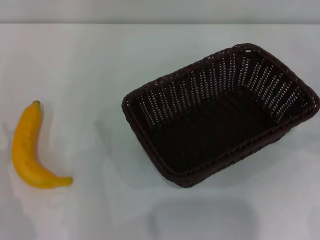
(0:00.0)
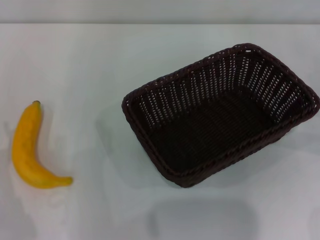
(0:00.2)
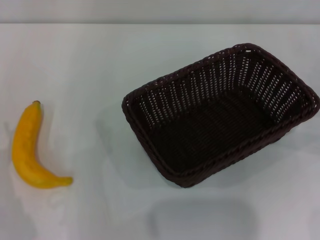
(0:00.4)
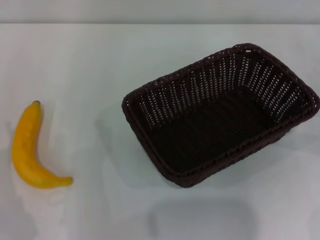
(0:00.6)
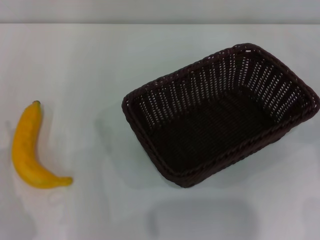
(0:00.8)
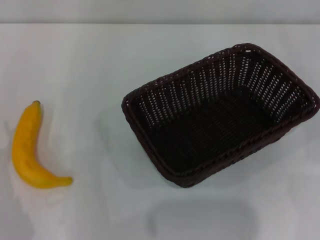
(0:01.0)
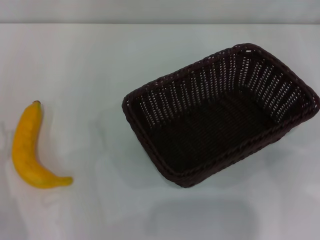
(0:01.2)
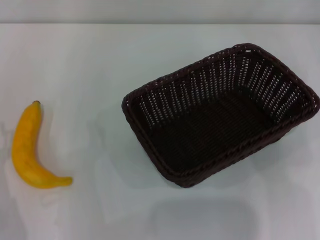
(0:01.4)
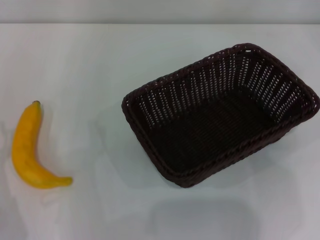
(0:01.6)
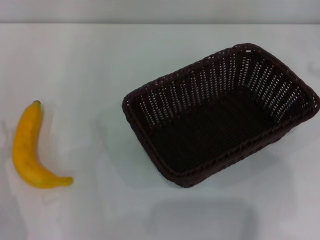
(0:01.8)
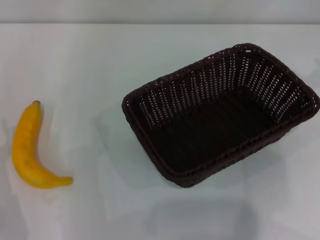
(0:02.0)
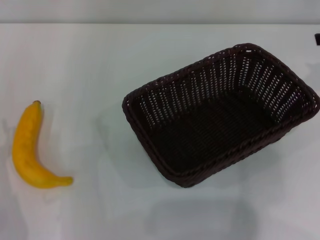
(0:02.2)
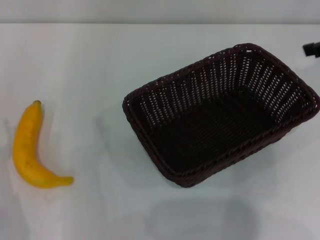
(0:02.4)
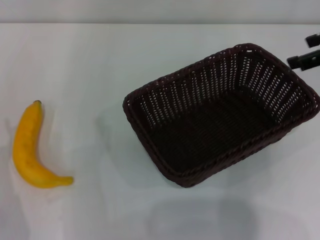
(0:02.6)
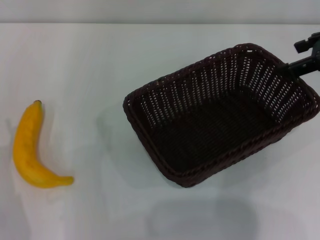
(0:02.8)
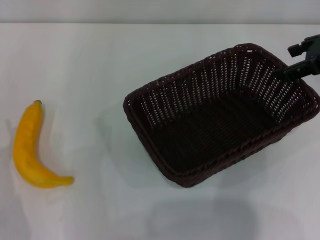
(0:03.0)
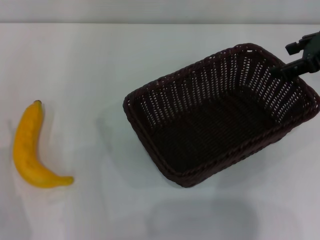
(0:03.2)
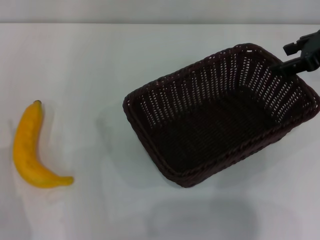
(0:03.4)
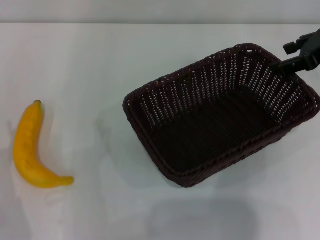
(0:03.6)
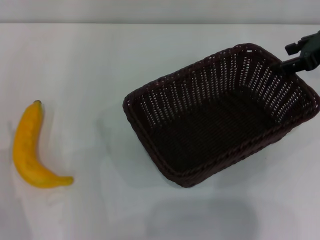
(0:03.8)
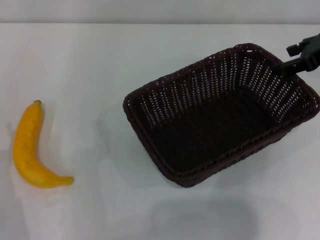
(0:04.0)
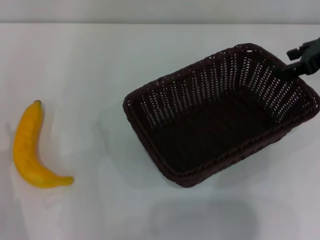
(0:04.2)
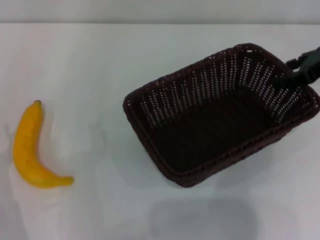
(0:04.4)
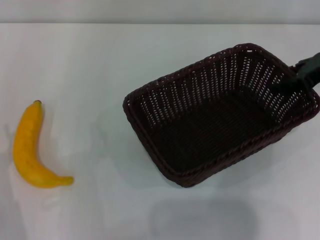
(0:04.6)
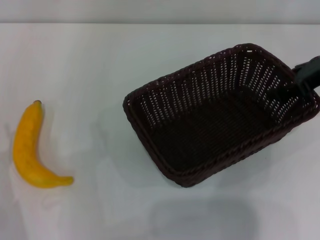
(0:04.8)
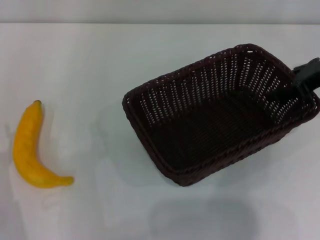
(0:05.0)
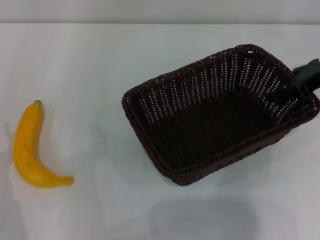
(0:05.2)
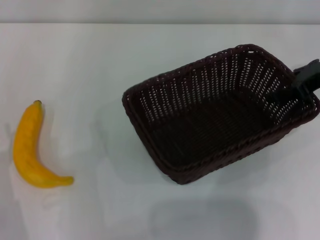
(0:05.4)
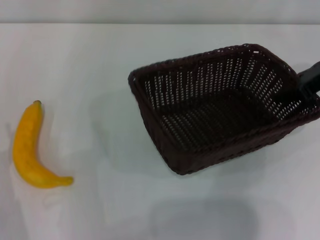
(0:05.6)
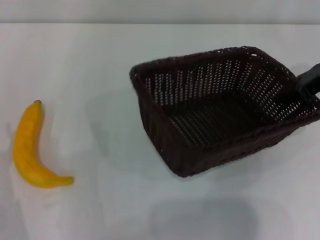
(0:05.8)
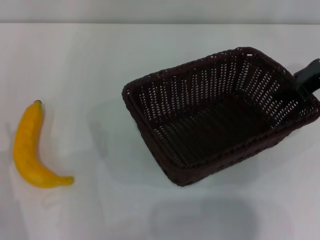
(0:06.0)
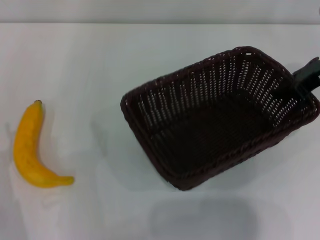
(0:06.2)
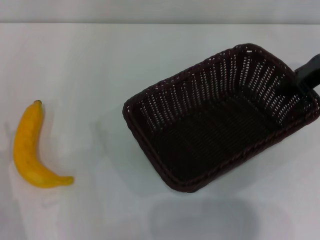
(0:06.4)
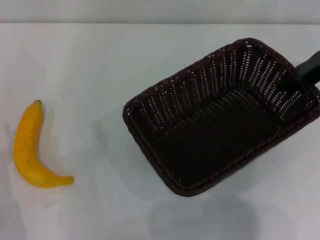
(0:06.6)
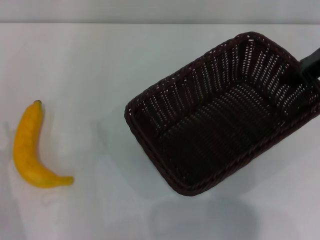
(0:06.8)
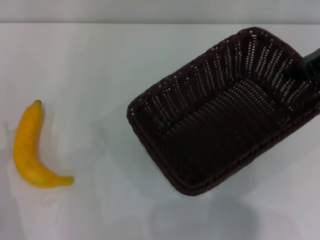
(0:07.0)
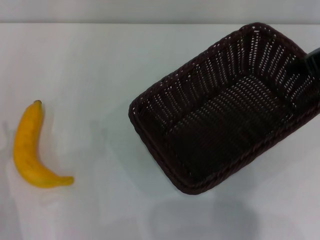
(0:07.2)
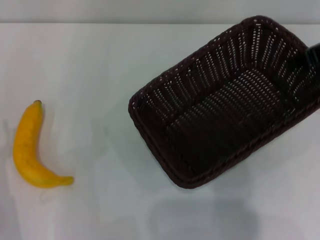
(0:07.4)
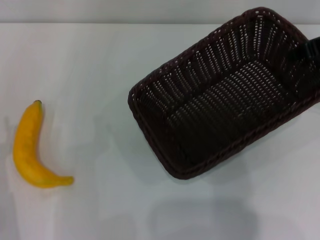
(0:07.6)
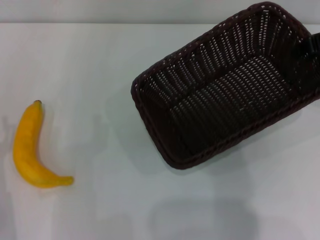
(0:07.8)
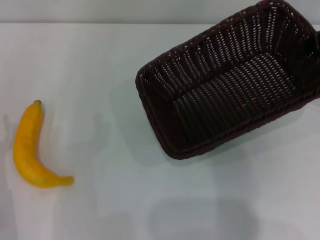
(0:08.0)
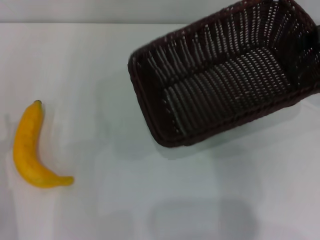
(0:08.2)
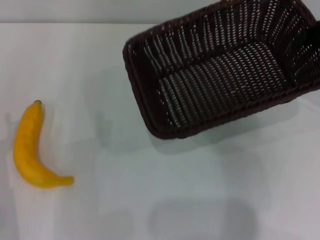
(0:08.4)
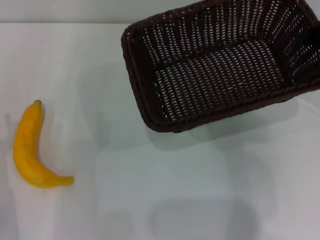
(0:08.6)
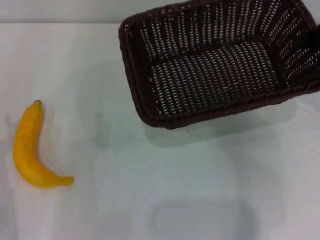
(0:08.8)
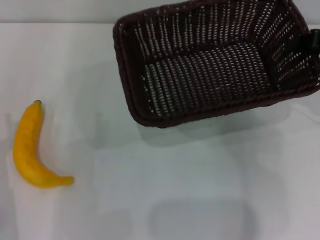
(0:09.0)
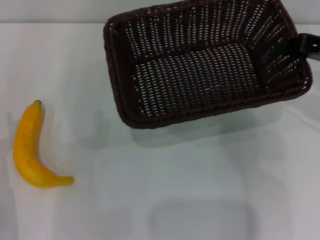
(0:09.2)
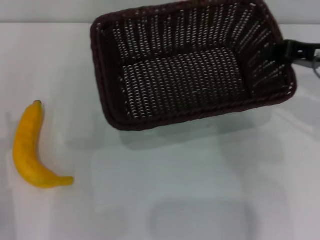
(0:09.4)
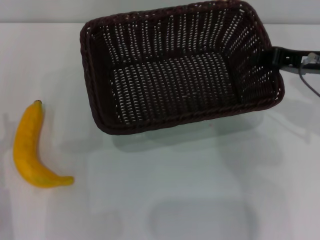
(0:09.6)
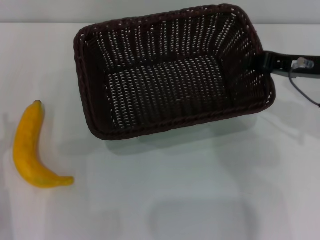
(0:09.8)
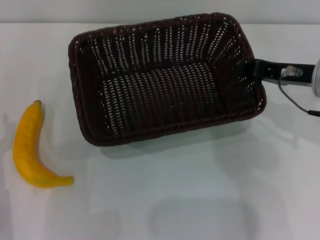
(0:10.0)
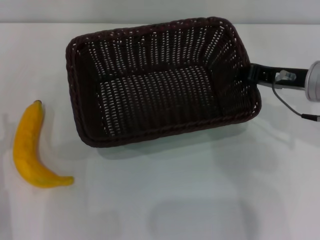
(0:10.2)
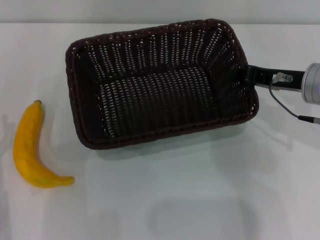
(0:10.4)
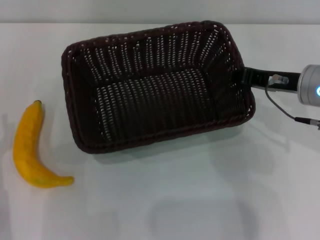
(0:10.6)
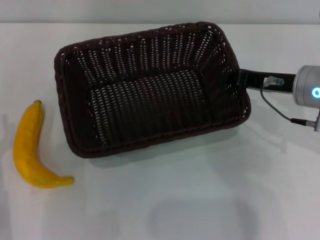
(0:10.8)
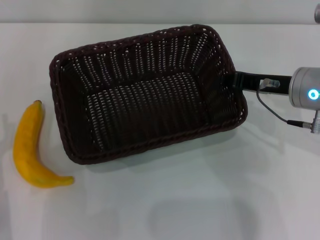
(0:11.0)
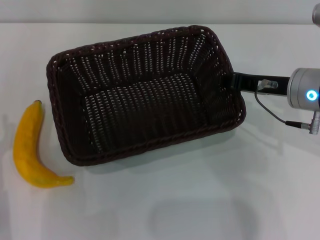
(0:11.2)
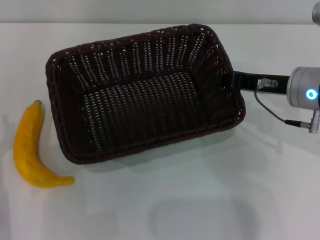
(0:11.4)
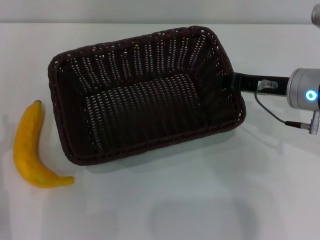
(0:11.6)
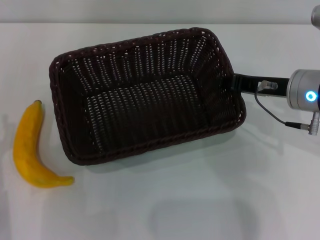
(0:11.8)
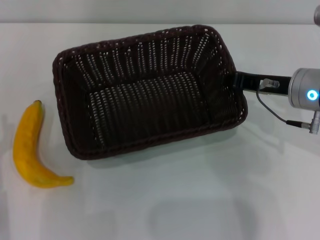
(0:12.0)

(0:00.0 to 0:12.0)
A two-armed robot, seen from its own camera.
Step, 0:00.0 - 0:08.0: Pick up the dark basket with the right gripper.
0:01.6 - 0:03.0: The right gripper moves to the left, about 10 cm.
0:03.0 - 0:04.4: There are only small adjustments of the grippers.
0:04.4 - 0:06.0: The right gripper closes its fingers.
0:06.0 - 0:07.6: The right gripper moves upward, roughly 5 cm, and closes.
0:09.0 - 0:10.4: The right gripper heads to the left and downward, covering some 10 cm.
0:10.4 - 0:12.0: The grippers make only small movements.

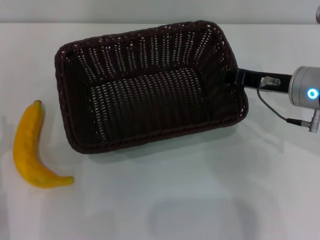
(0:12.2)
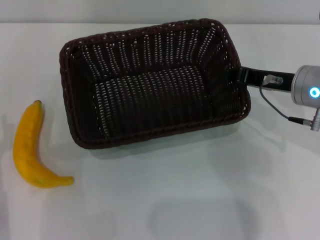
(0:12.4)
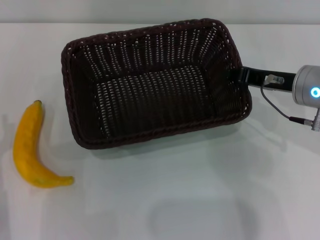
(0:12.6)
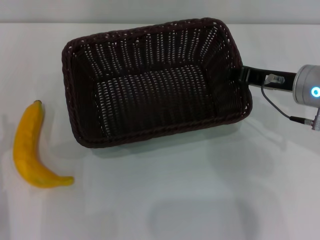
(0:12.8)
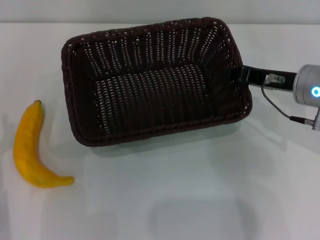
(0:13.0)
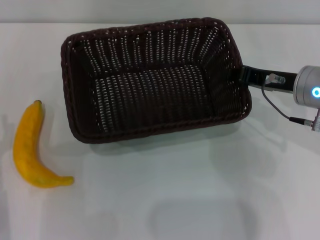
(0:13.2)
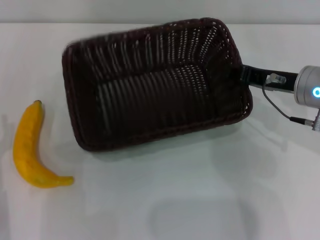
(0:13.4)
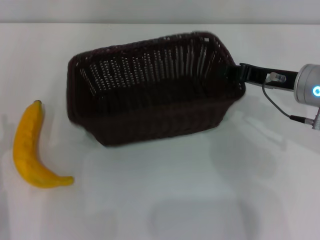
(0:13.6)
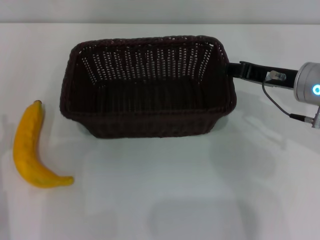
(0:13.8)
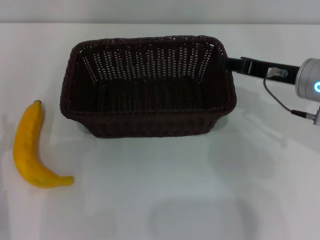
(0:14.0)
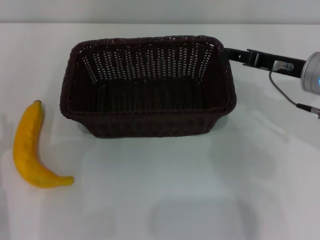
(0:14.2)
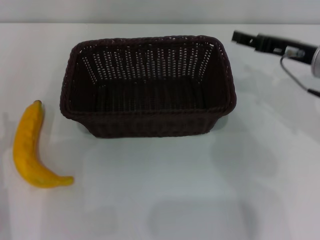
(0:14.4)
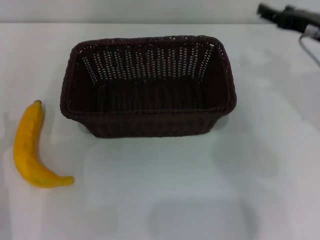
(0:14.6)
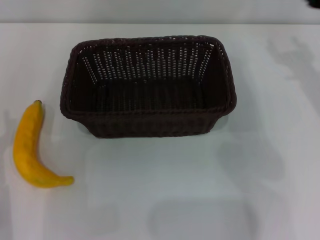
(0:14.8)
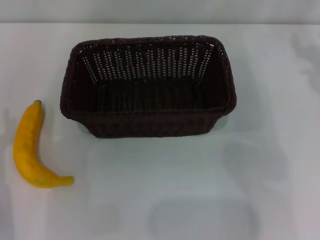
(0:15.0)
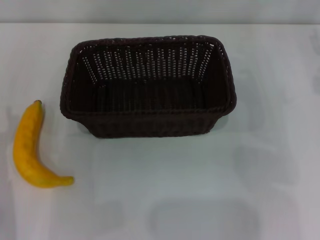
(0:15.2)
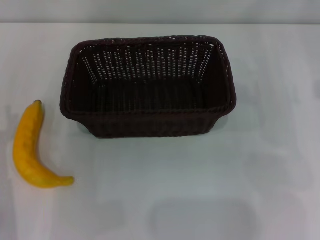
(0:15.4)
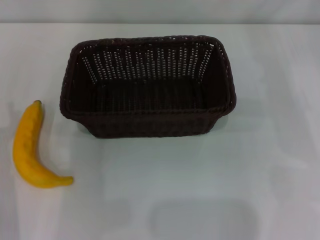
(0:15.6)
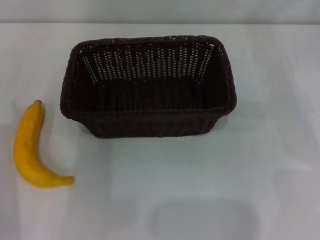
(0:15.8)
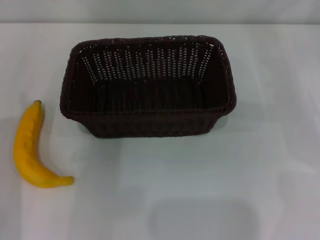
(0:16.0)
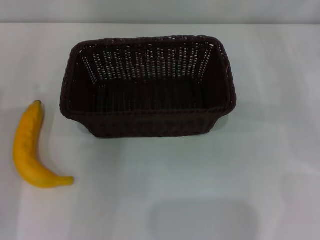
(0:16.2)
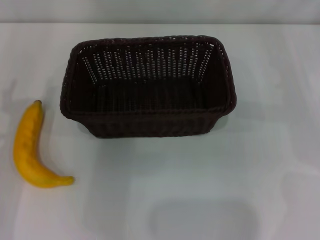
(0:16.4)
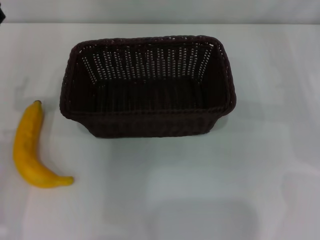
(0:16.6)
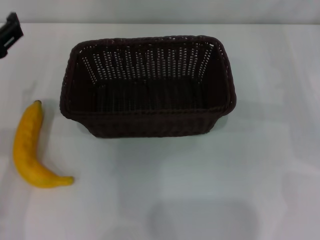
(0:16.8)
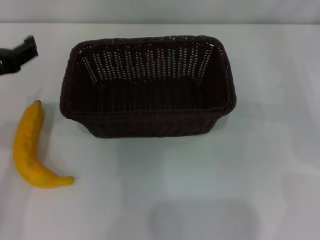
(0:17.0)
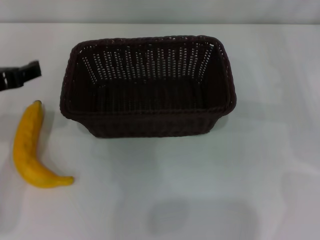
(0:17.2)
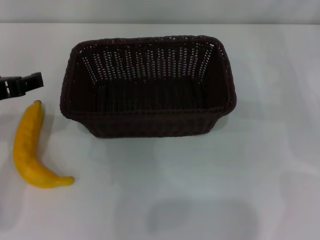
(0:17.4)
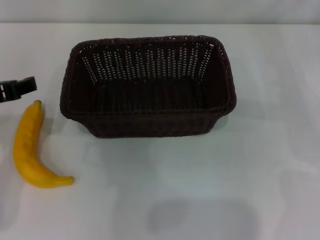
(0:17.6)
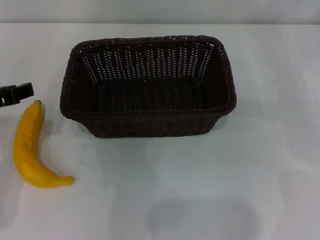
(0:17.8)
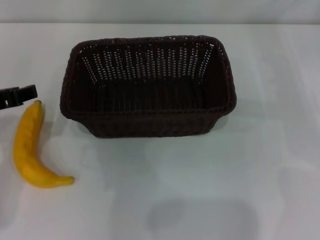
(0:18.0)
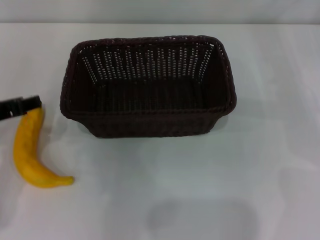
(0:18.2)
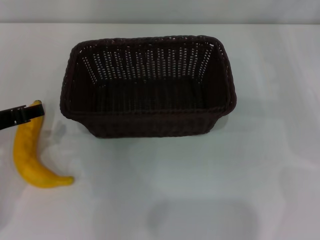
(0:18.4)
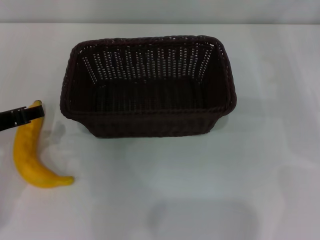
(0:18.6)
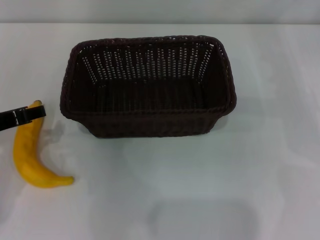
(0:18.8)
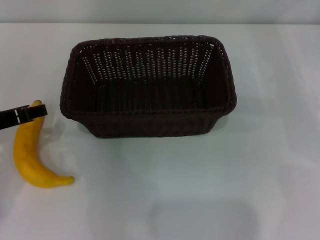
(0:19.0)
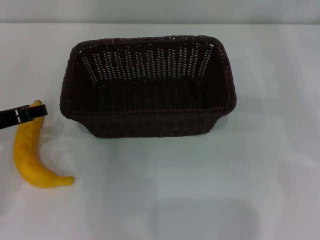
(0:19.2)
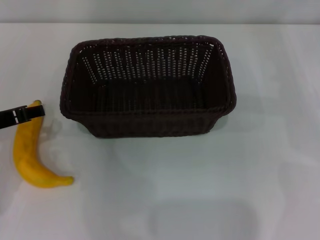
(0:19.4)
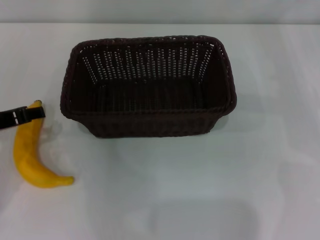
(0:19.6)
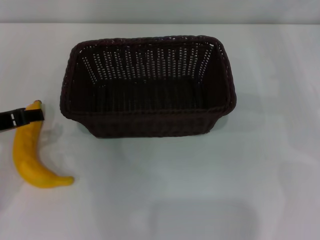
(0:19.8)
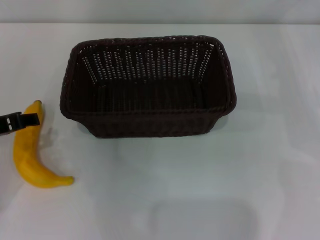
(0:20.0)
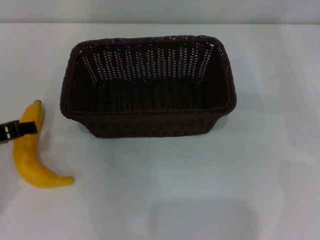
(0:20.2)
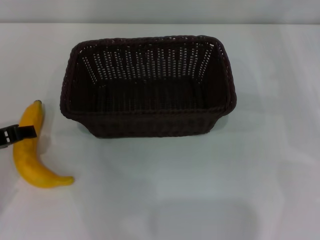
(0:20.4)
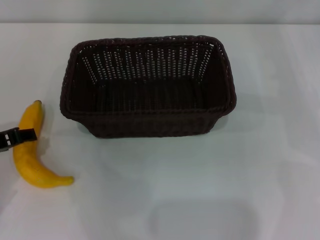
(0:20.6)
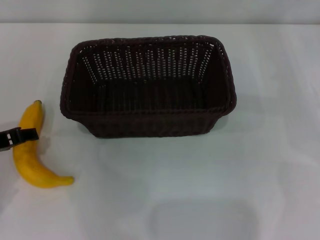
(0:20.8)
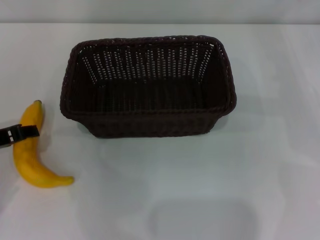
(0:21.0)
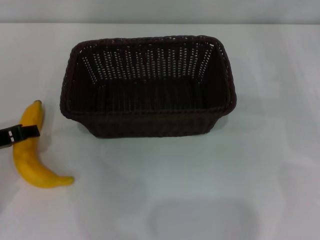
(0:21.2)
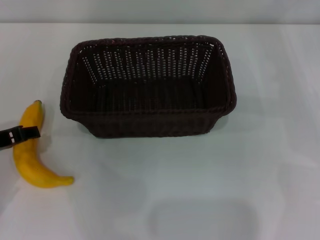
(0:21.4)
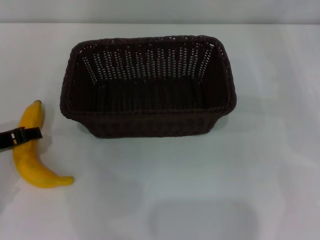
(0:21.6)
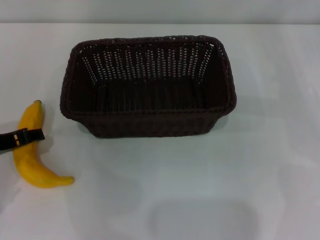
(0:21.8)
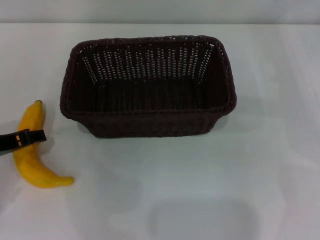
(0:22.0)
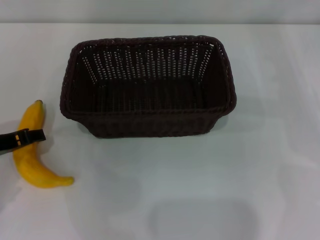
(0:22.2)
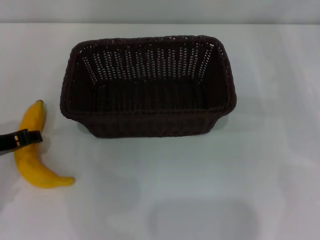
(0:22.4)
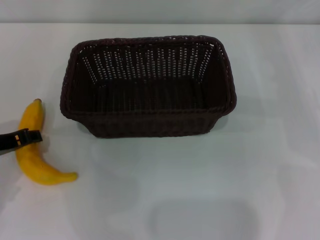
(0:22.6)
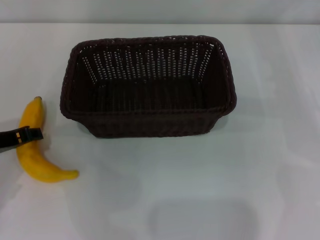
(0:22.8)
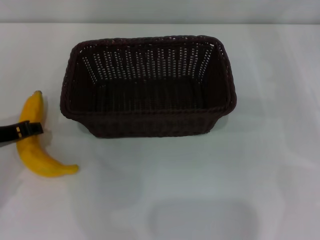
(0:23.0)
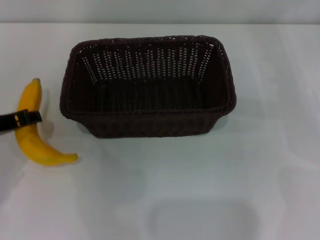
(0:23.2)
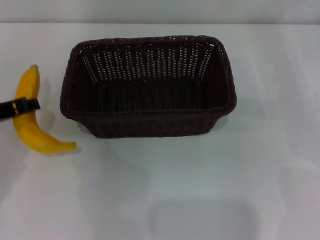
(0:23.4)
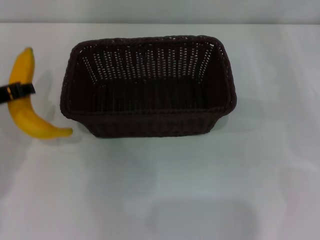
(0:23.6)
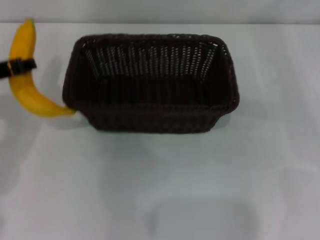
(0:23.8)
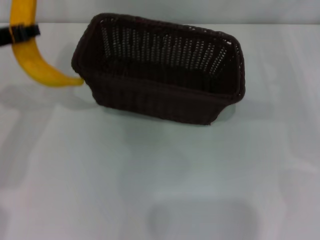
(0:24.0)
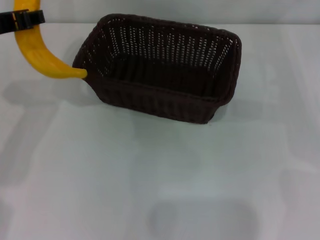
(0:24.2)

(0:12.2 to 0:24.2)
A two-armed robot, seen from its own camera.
Step, 0:12.2 - 0:14.2: Place the dark basket in the center of view with the right gripper.
0:12.2 - 0:13.8: Both grippers stay put.
0:13.8 - 0:15.2: The right gripper shifts some 10 cm to the right, and opens its fingers.
0:16.6 - 0:18.2: The left gripper closes up.
0:18.2 - 0:21.2: The grippers move only a little.
0:21.2 - 0:22.6: The left gripper closes up.
0:22.6 - 0:24.2: The left gripper moves upward, some 15 cm.
